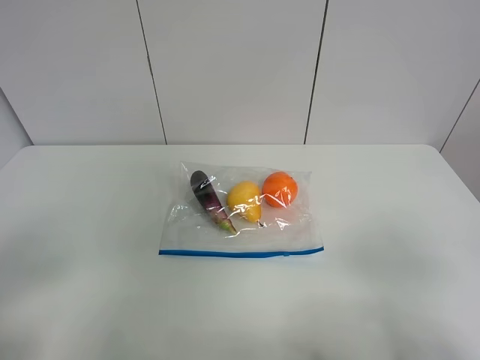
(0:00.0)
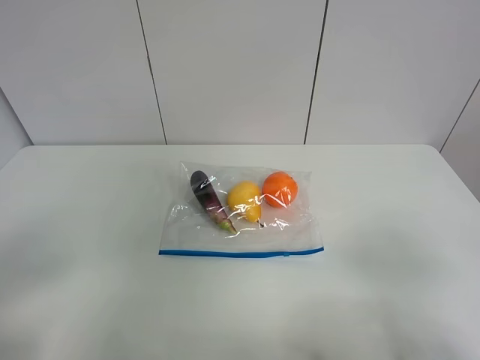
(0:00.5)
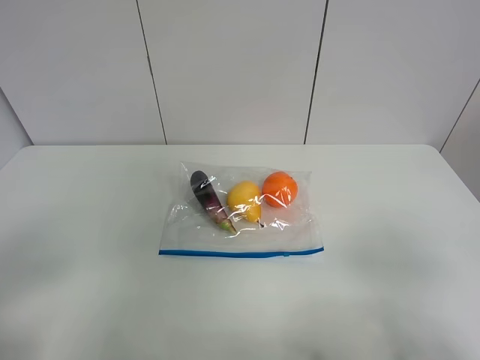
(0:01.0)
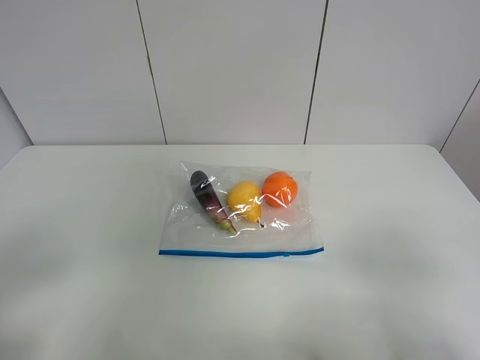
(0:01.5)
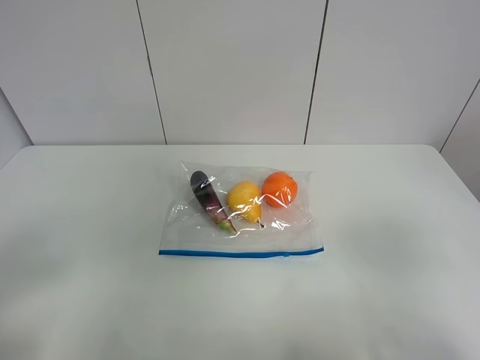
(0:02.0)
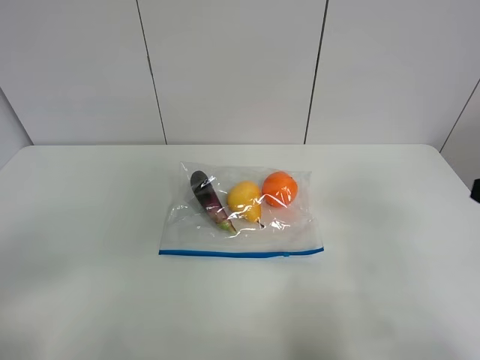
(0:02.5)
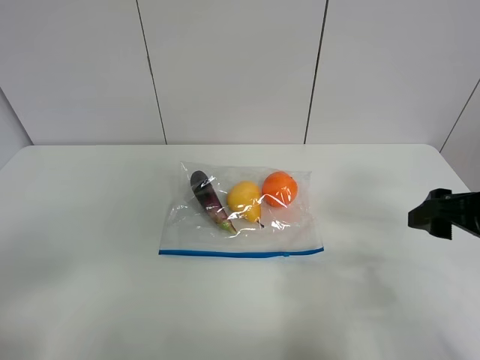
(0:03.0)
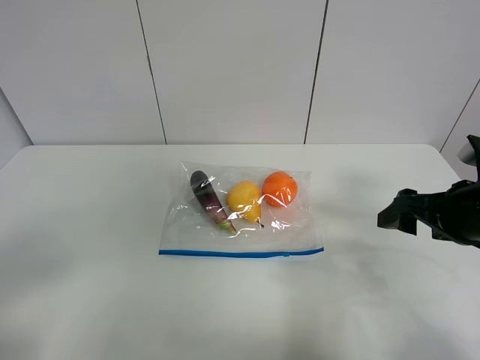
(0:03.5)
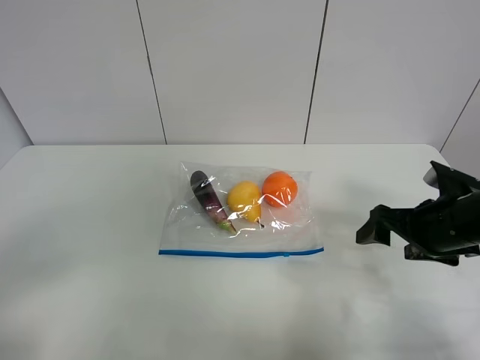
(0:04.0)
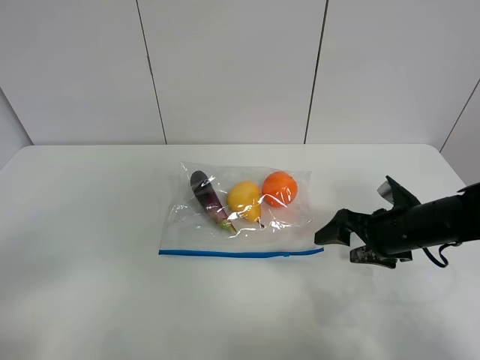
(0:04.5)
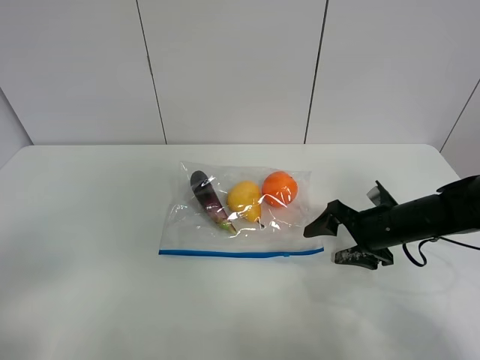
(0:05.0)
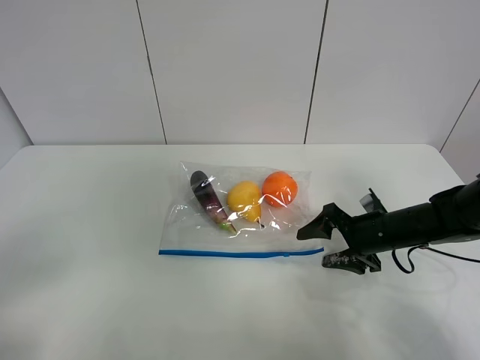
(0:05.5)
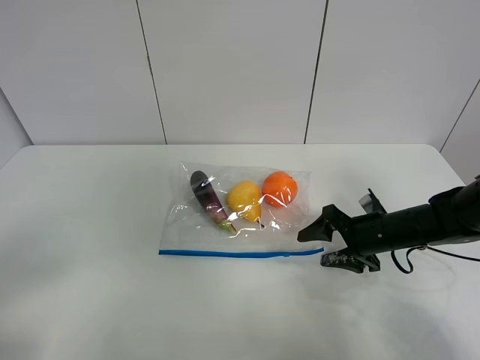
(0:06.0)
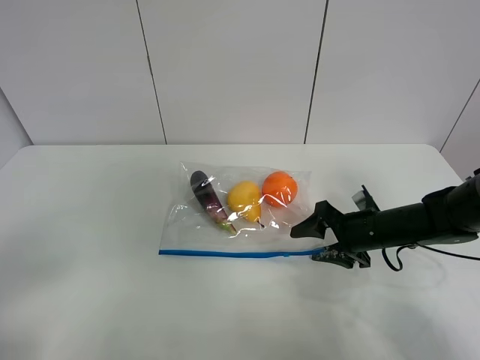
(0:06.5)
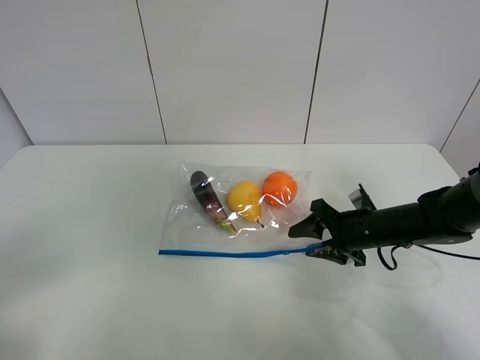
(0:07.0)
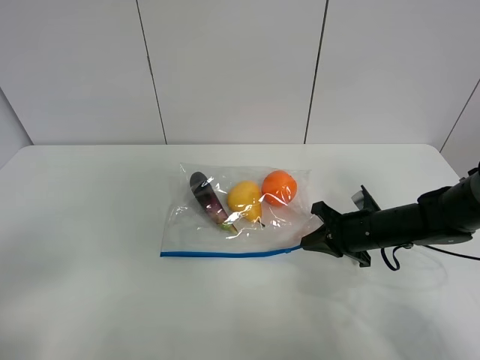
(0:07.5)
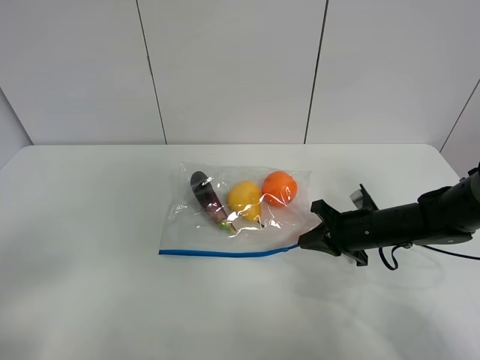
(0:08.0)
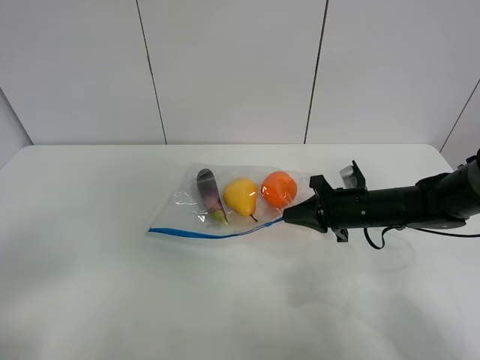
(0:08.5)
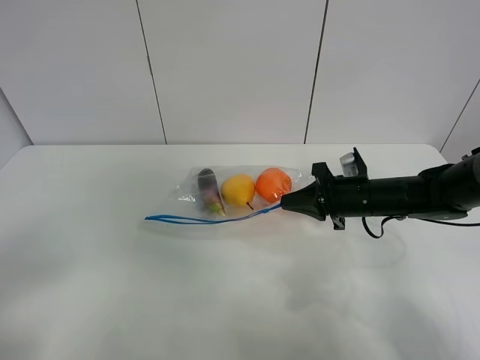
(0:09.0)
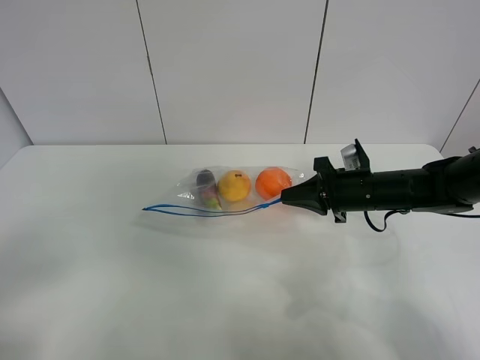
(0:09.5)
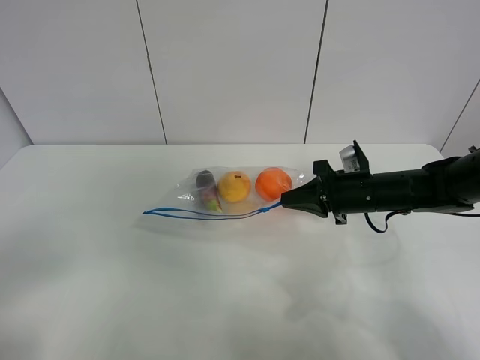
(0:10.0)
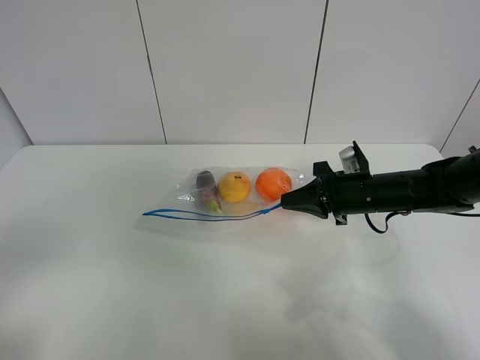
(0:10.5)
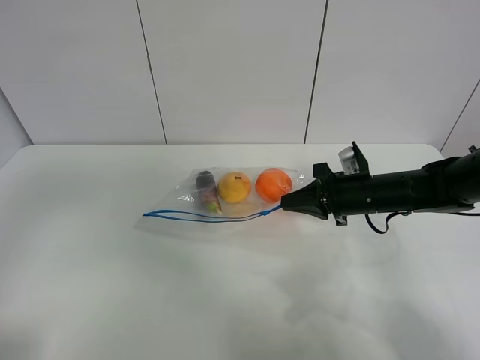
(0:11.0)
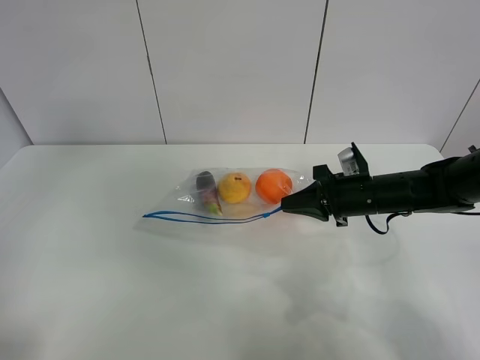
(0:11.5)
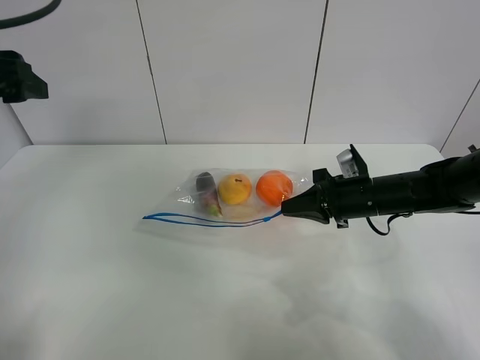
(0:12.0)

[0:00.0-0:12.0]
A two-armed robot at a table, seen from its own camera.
Step, 0:00.0 to 0:07.0: Grasp the fruit bag with right gripper.
Step, 0:07.5 to 0:09.5: Lift the fruit bag with your right gripper.
0:02.0 to 0:04.0: The right gripper moves forward and downward, roughly 30 cm.
0:04.0 to 0:06.0: The right gripper moves downward and forward, some 10 cm.
0:06.0 to 0:08.0: The right gripper closes up.
0:08.0 to 0:10.0: The right gripper goes approximately 5 cm upward.
0:10.0 to 0:12.0: The left gripper heads forward, covering about 25 cm.

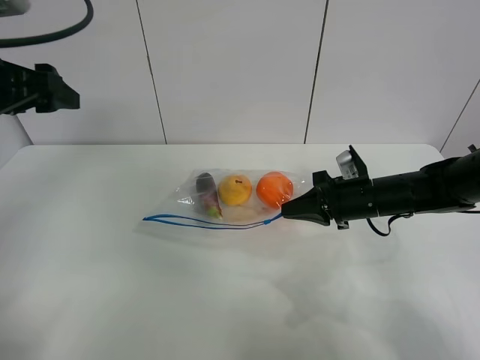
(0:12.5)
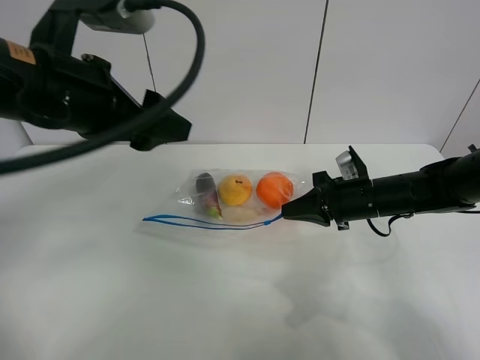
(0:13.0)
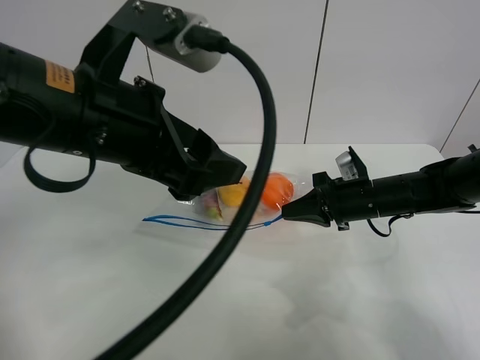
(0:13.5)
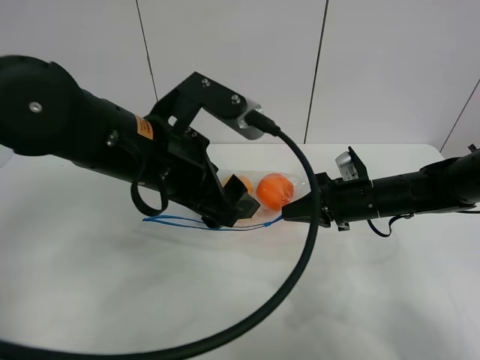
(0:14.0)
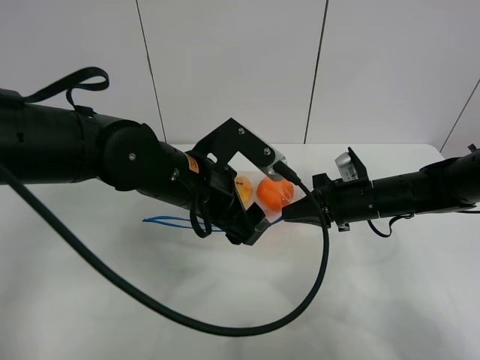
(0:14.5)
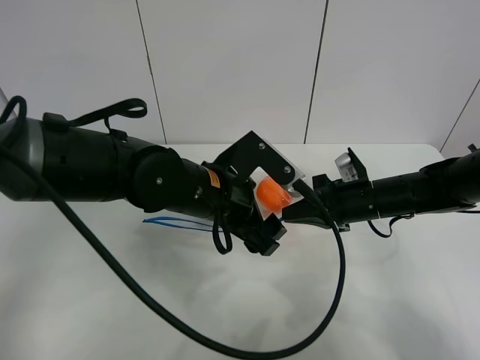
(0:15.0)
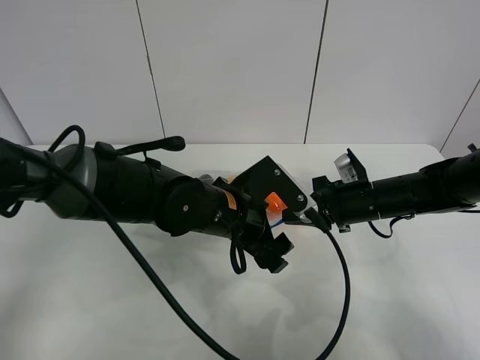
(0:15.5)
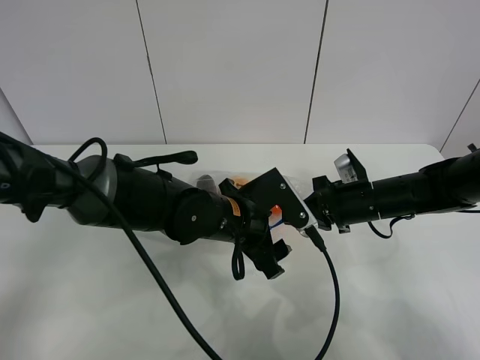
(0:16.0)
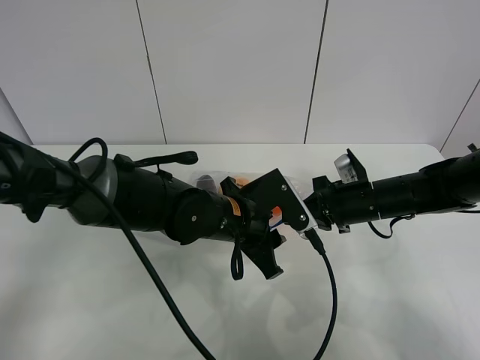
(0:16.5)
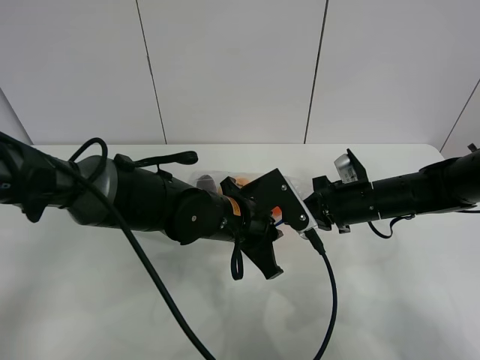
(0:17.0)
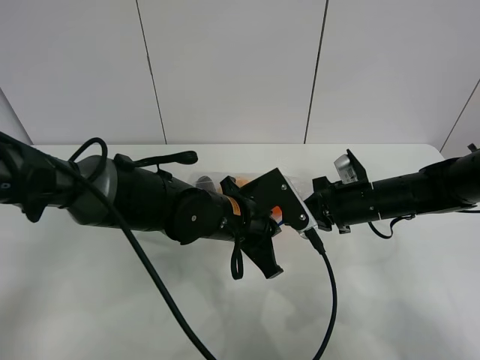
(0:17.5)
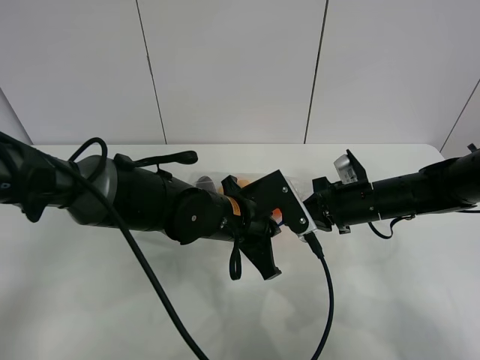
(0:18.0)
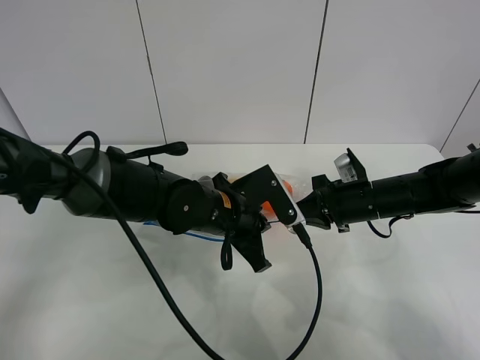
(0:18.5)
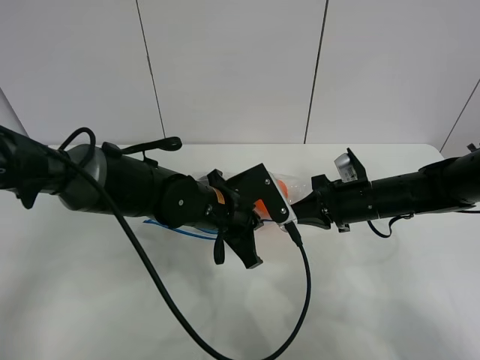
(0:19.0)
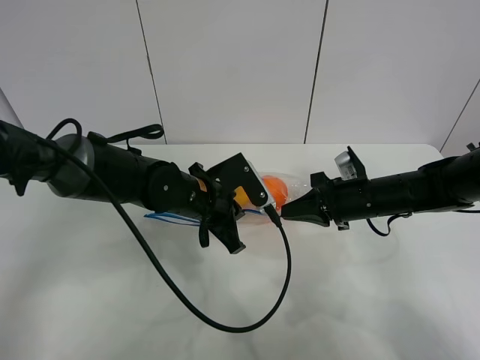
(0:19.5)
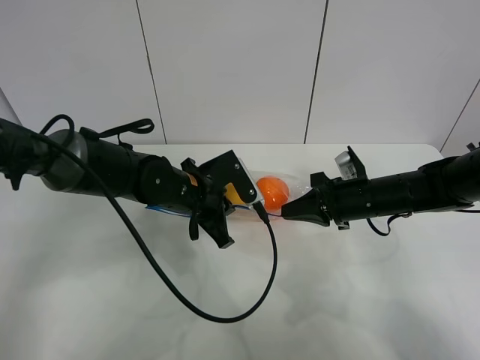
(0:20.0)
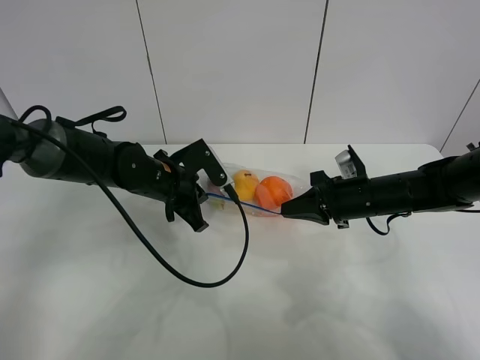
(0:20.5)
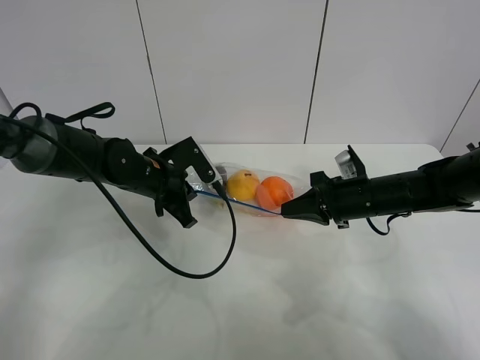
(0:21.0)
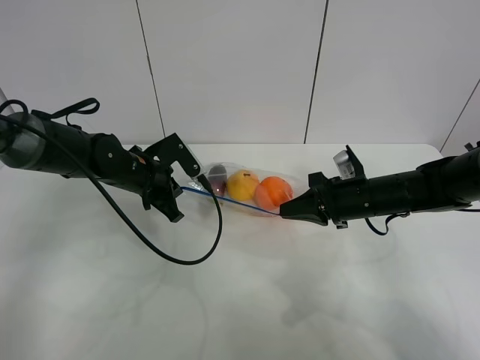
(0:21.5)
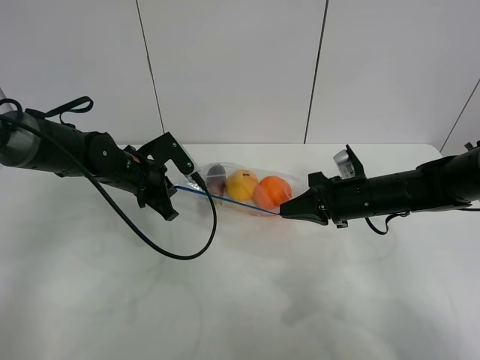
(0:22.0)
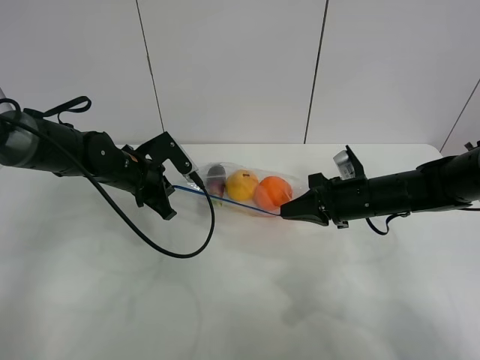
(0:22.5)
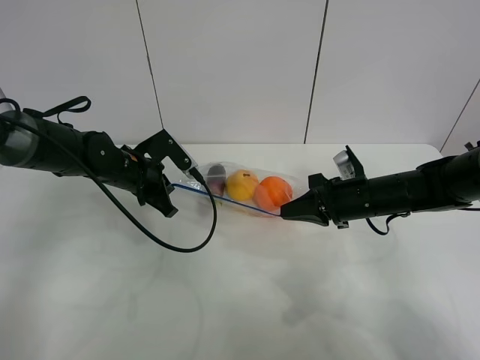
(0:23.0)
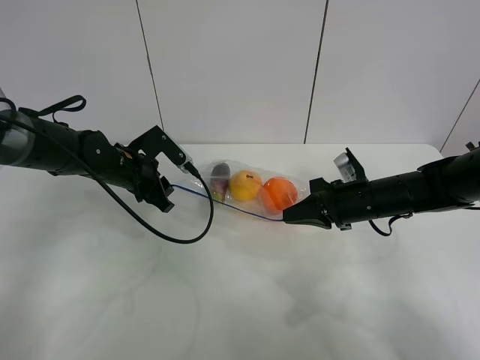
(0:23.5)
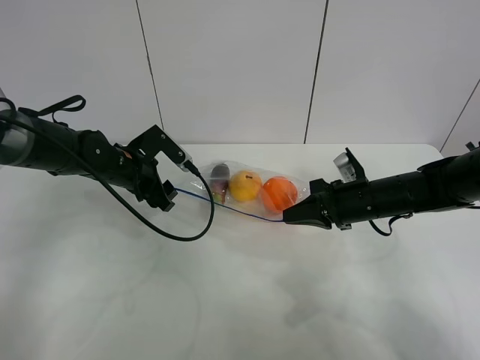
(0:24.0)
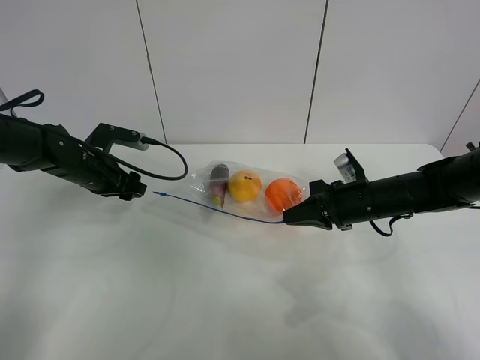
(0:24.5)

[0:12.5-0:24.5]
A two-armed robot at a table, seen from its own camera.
Step, 0:12.5 to 0:24.0: Pull the fruit bag with left gripper.
0:12.5 to 0:14.5: The left gripper shifts approximately 25 cm to the right and downward.
0:14.5 to 0:16.5: The left gripper travels downward by some 5 cm, and closes.
0:16.5 to 0:18.5: The left gripper closes its fingers.
0:18.5 to 0:20.5: The left gripper travels to the left and forward by about 10 cm.
0:20.5 to 0:22.5: The left gripper shifts about 5 cm to the left.
0:22.5 to 0:24.5: The left gripper shifts some 10 cm to the left, and opens up.

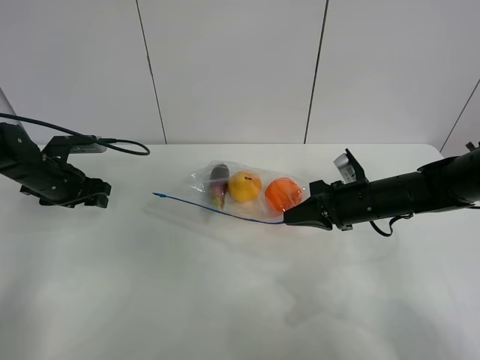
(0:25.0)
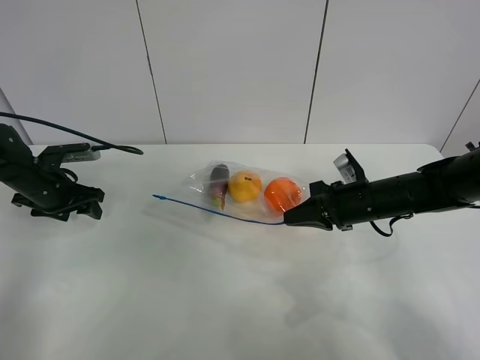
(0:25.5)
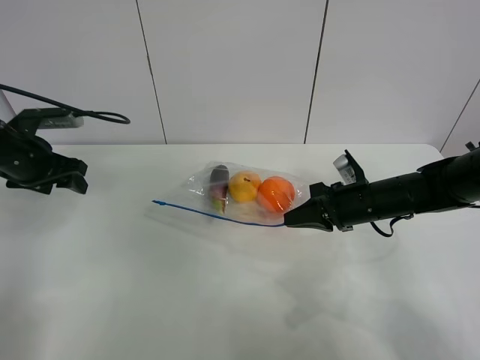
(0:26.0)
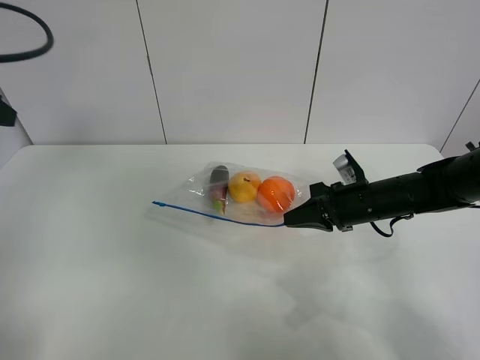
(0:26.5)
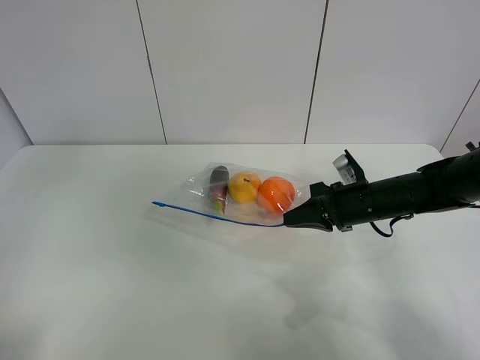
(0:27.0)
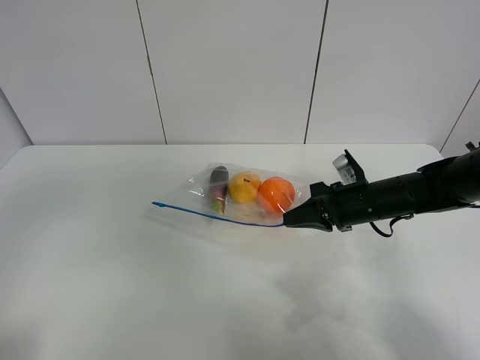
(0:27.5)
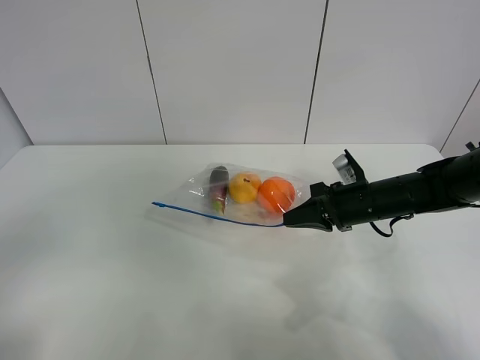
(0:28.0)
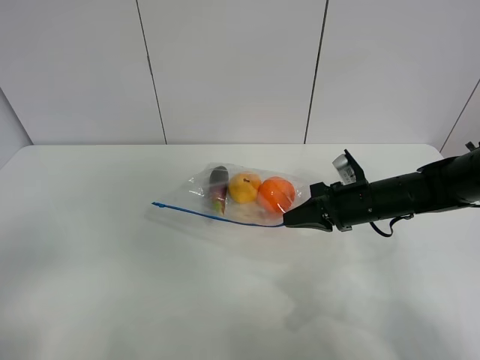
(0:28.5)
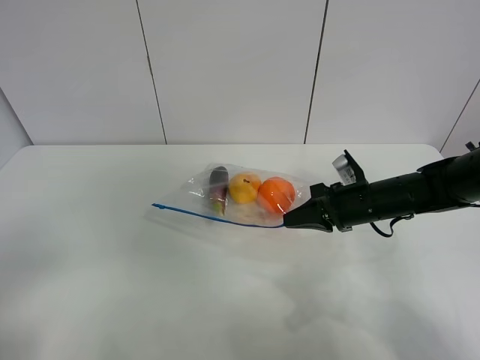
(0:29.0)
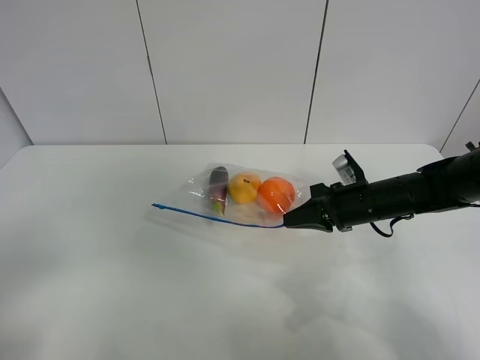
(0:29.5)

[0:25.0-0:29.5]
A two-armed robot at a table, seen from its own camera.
0:25.0 to 0:27.0: The left gripper moves upward and backward, some 40 cm.
